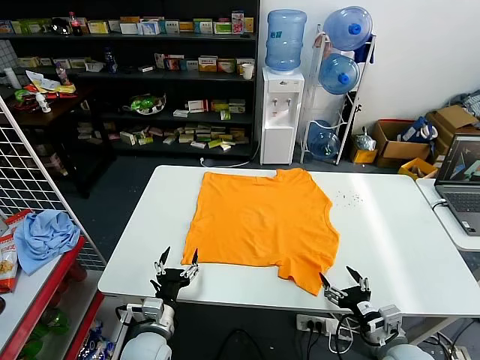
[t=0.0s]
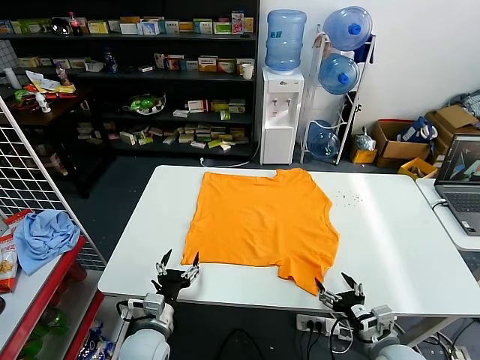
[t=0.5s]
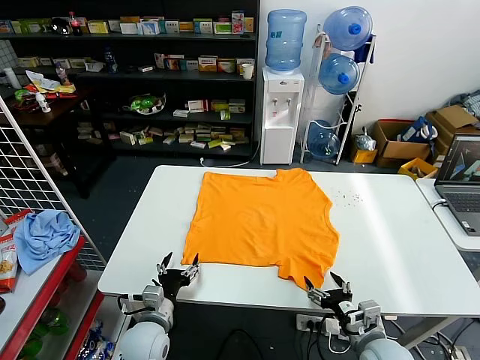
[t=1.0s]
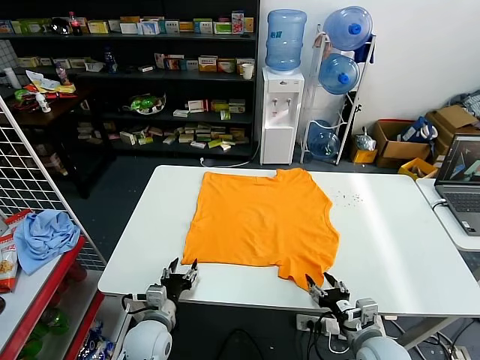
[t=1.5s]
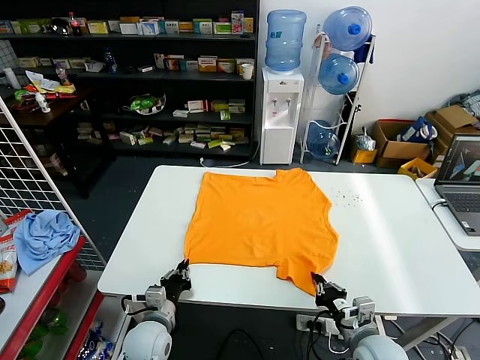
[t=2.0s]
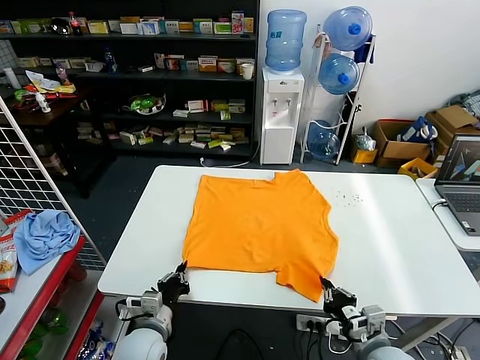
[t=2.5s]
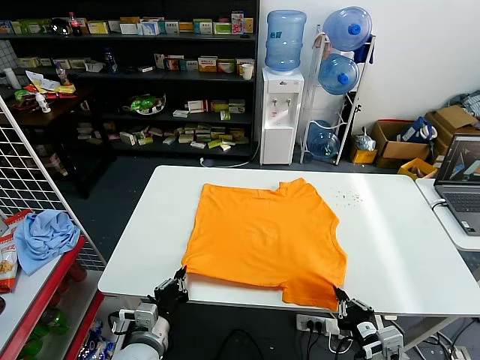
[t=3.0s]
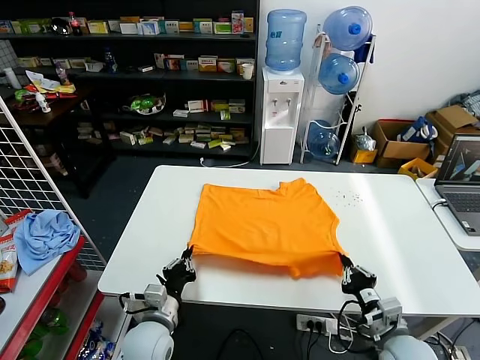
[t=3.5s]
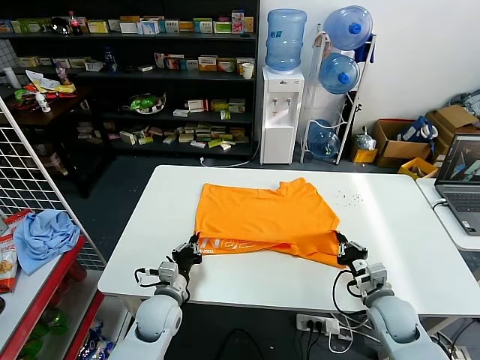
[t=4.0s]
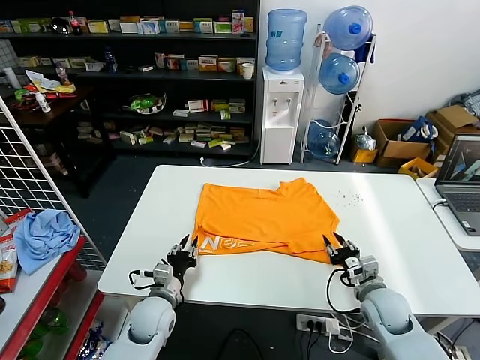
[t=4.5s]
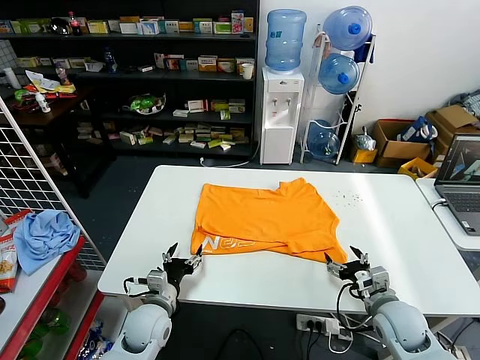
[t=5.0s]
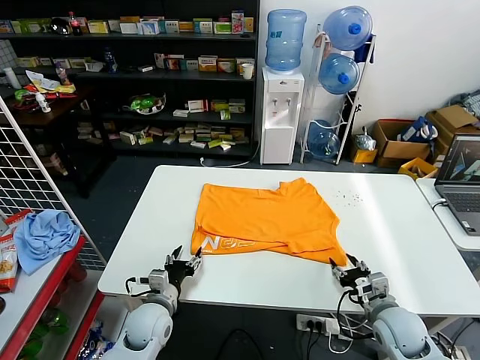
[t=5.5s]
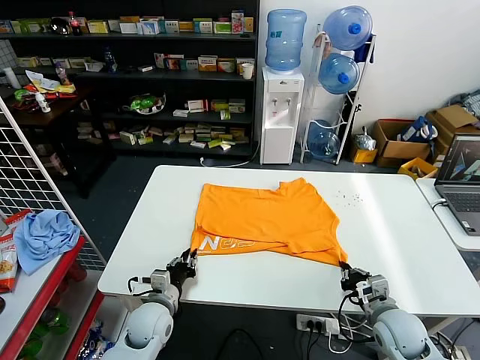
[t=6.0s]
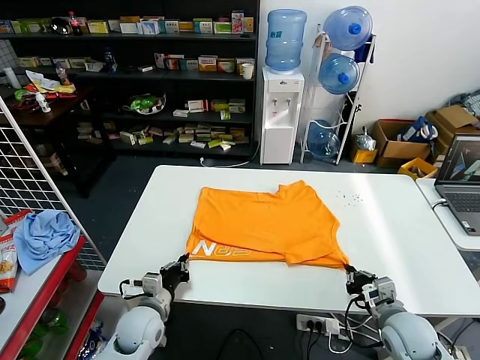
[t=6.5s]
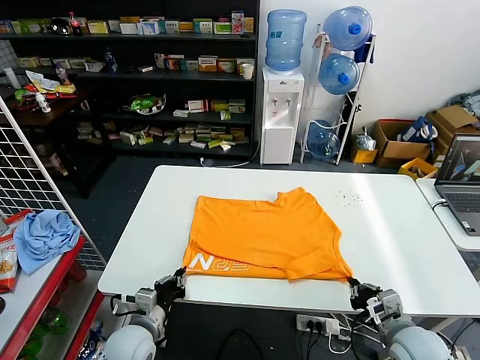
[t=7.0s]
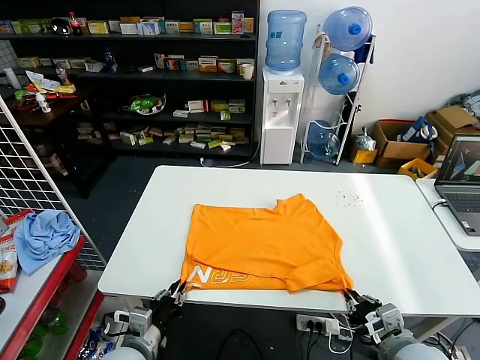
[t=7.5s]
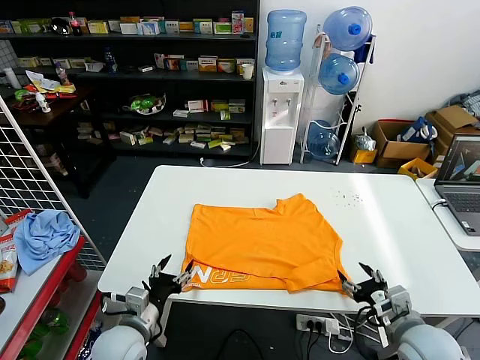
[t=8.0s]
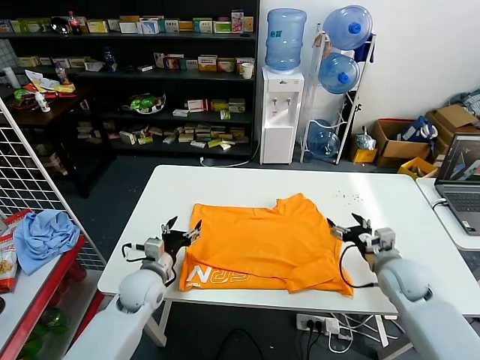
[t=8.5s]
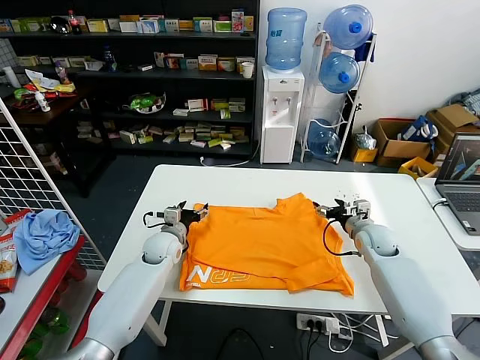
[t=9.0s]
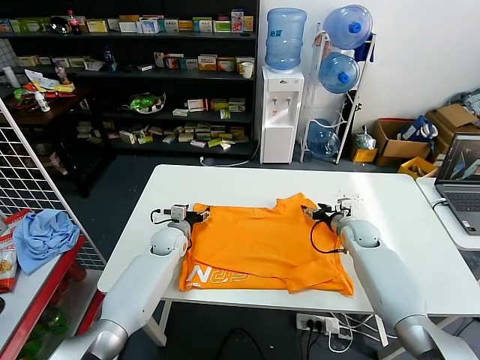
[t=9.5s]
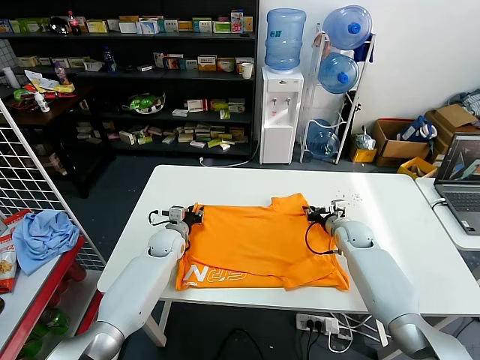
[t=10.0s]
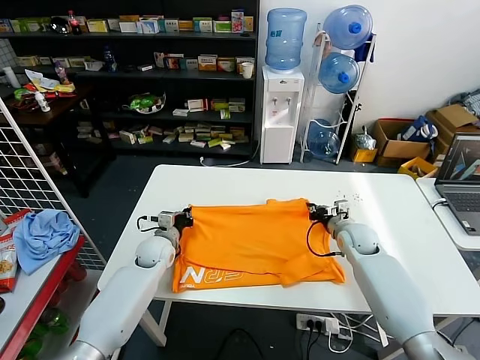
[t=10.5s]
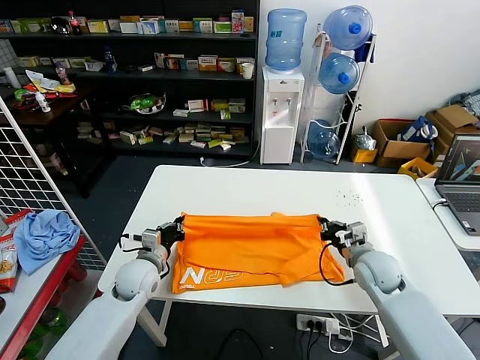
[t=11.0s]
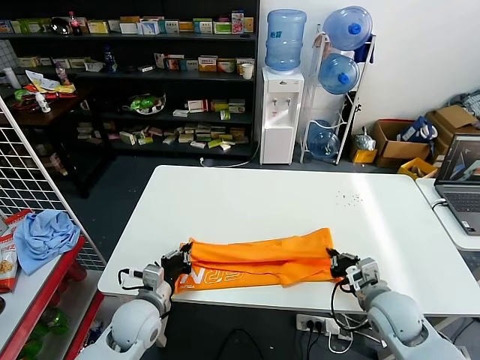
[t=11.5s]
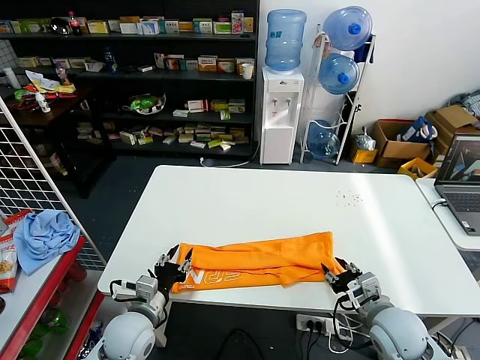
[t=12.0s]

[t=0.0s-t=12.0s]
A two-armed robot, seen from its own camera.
Task of the whole recording: fold and organize the clothes.
Step, t=0.0s to t=2.0s: use both grippers simultaneously to clamp the lower edge of the clothing fabric.
Step, t=2.5s to t=4.5s: use both grippers to drag the lower edge of the fabric forward and fold it over the upper edge.
Step, t=5.0s to t=8.0s: Drag the clothes downward with both gripper.
Step, t=8.5s to t=10.0s: use both grippers simultaneously to clamp the upper edge of the clothing fabric.
t=2.0s to t=4.0s: The right gripper shifts about 10 cm forward and to the right, while the left gripper shifts by some 5 cm.
t=4.0s to t=6.0s: The right gripper opens, then closes again. Meanwhile the left gripper opens and closes again.
t=6.0s to t=8.0s: The right gripper heads upward, covering roughly 5 cm, and opens its fingers; the left gripper moves backward and upward, about 10 cm, and opens.
t=8.0s to t=10.0s: The grippers both shift forward by roughly 30 cm. The right gripper closes.
t=10.0s to t=12.0s: The grippers both shift backward by roughly 25 cm. The left gripper closes, then reopens, while the right gripper opens its fingers.

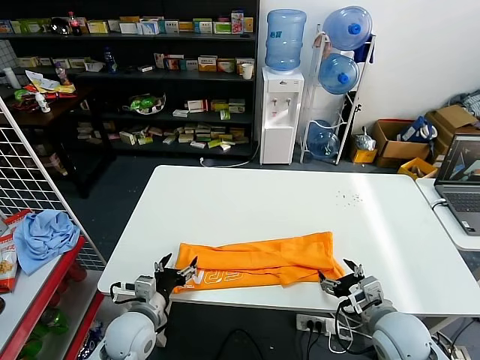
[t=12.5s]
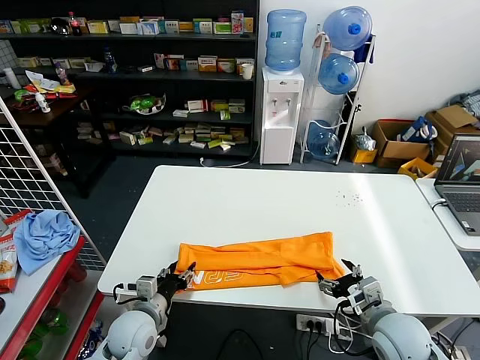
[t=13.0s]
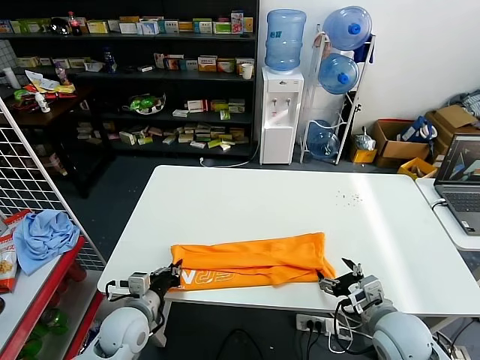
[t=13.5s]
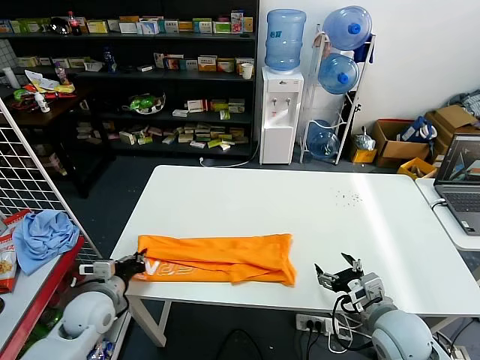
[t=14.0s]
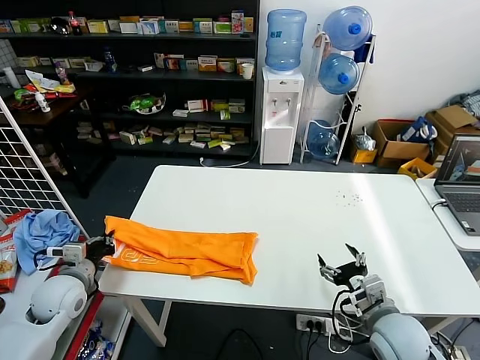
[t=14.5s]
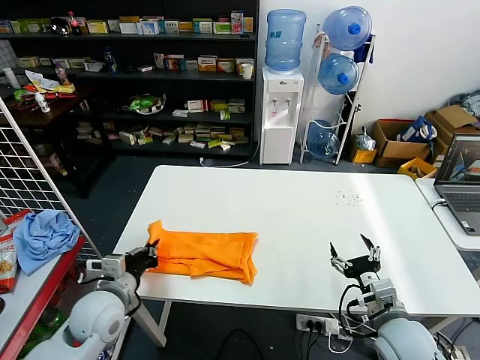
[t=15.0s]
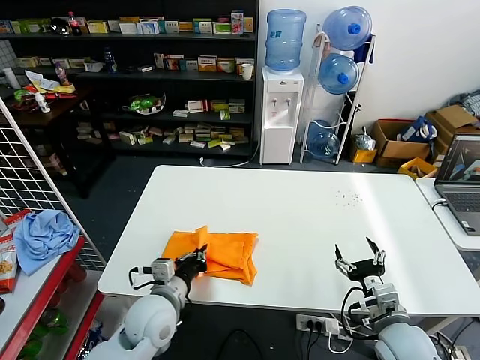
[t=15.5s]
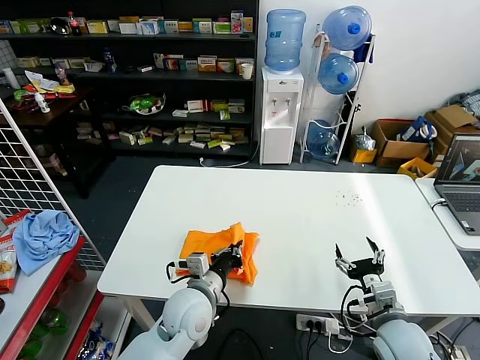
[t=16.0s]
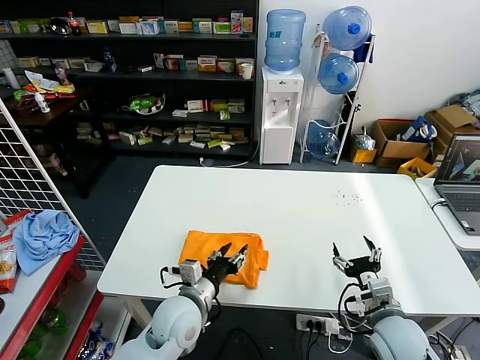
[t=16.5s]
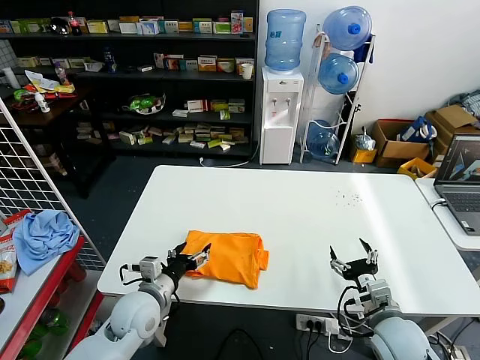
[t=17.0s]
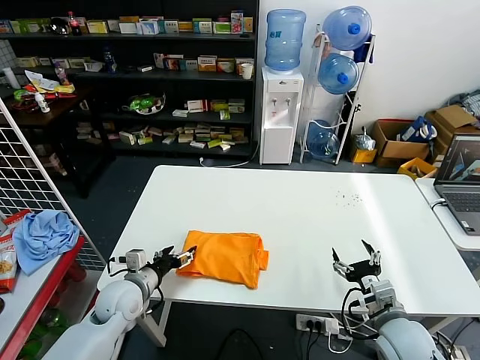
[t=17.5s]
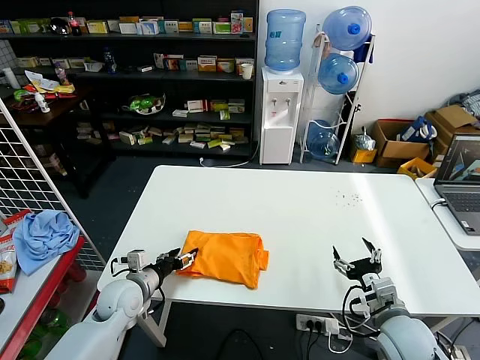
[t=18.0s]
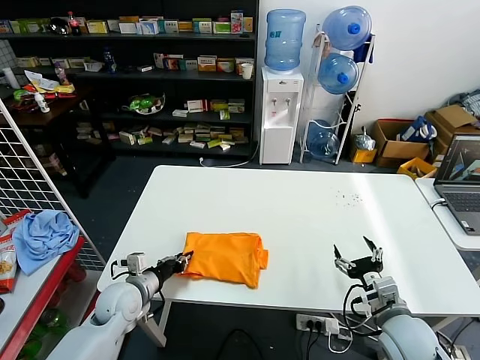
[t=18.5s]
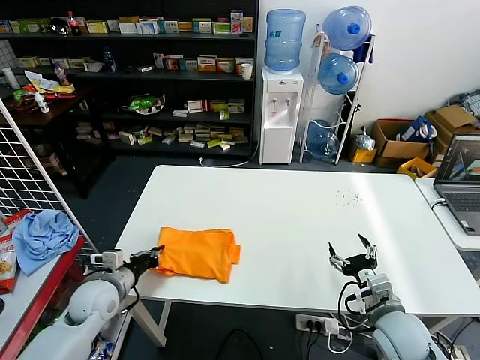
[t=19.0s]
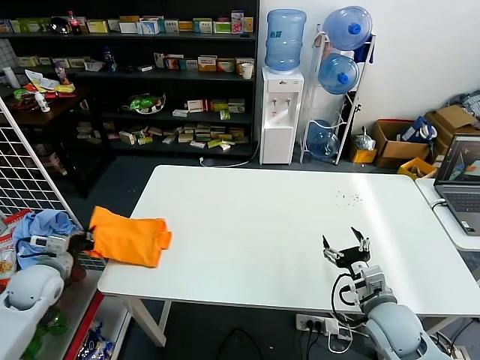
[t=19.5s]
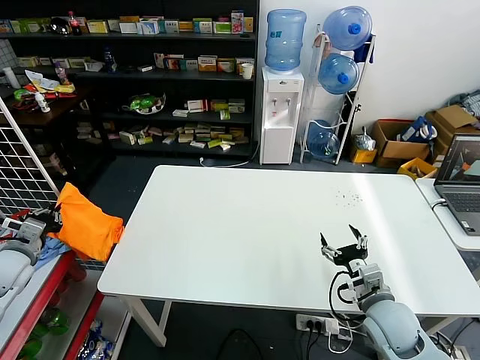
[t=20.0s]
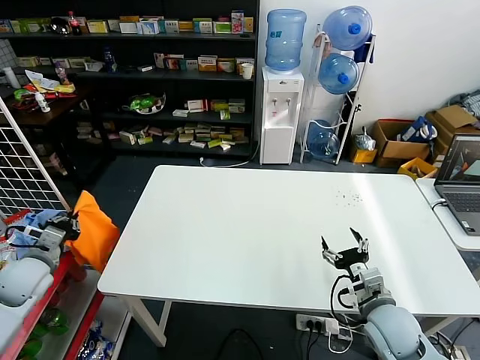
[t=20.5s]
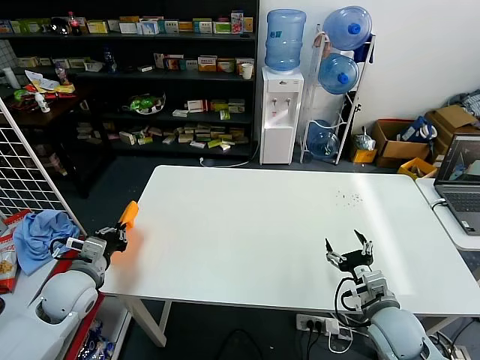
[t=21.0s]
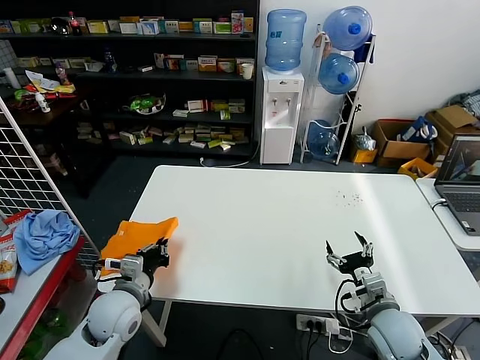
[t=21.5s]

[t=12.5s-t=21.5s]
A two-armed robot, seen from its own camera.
Task of the whole recording: fold and organize the clothes.
Step, t=12.5s to t=13.5s: use the left gripper to clamp the left edge of the fabric.
Step, t=14.0s to t=16.5s: use the left gripper to drag the left edge of the fabric to the left and folds it over the right edge.
t=12.5s to t=14.5s: The left gripper shifts about 15 cm to the left and upward, and closes.
t=14.5s to t=17.0s: The left gripper heads to the right, covering approximately 20 cm, and opens its fingers.
t=17.0s to t=19.5s: The left gripper is displaced to the left by about 25 cm, and closes.
t=19.5s to t=21.5s: The left gripper heads to the right, covering roughly 15 cm.

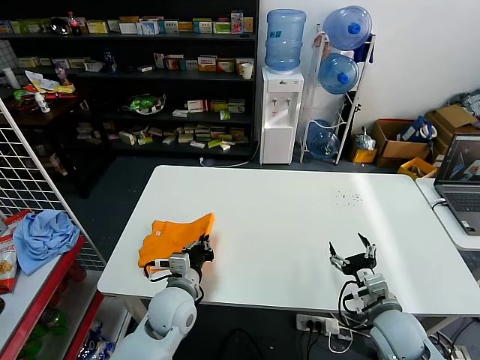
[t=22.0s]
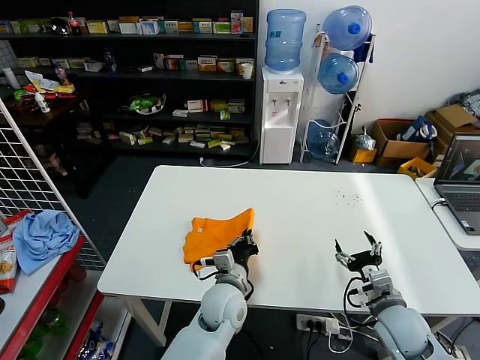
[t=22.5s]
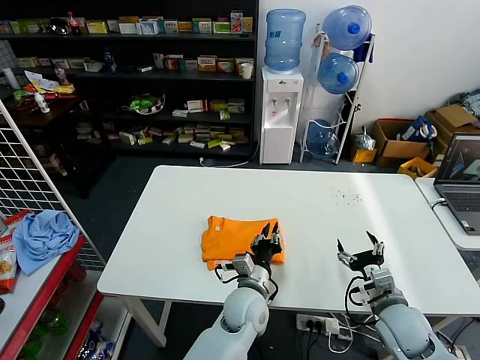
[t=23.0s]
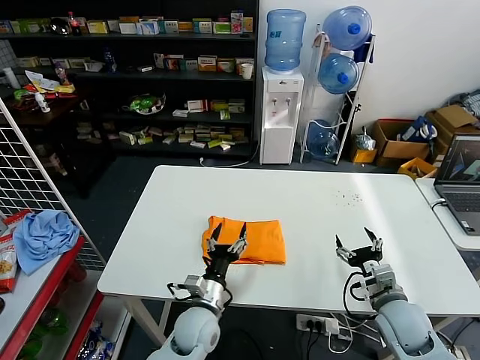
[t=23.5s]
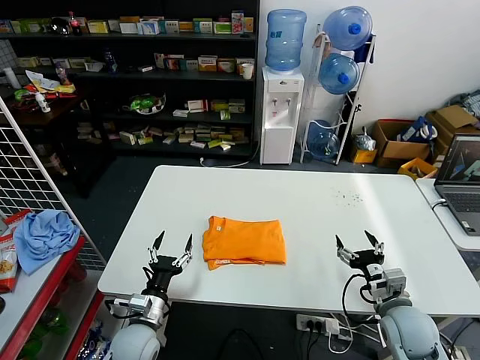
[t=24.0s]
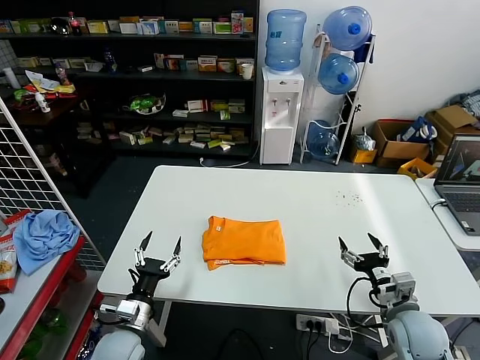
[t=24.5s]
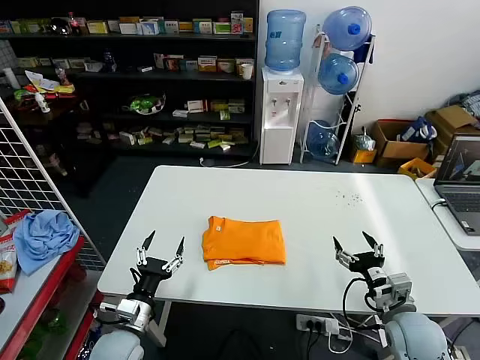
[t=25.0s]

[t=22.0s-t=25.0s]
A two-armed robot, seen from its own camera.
Task of the whole recording: fold and organize the clothes.
t=22.0s to t=23.5s: The left gripper travels to the right and downward by about 10 cm, and opens up.
t=23.5s to t=25.0s: The left gripper is displaced to the left by about 20 cm.
